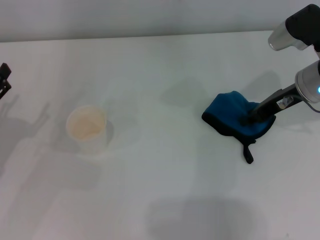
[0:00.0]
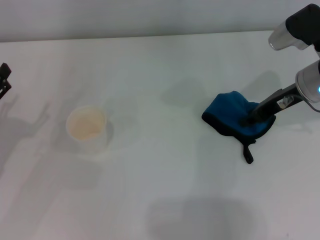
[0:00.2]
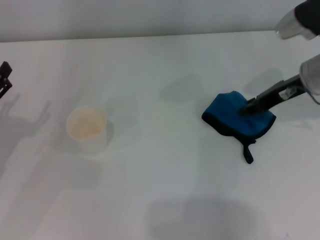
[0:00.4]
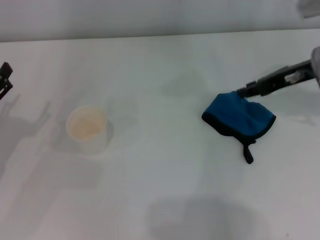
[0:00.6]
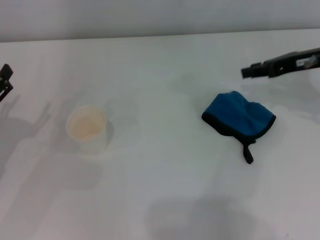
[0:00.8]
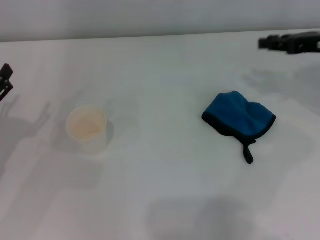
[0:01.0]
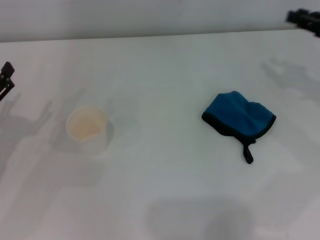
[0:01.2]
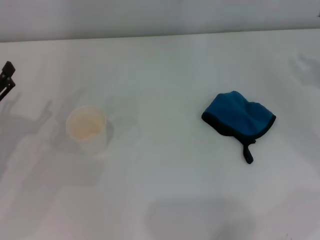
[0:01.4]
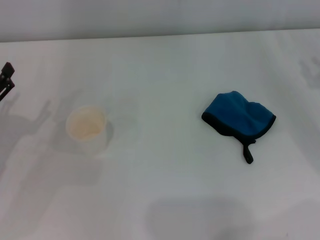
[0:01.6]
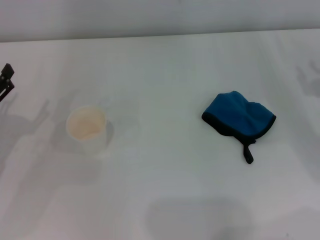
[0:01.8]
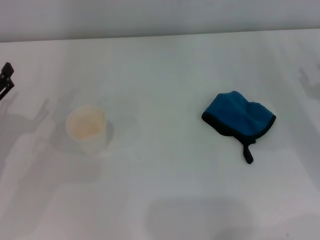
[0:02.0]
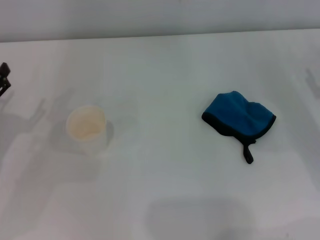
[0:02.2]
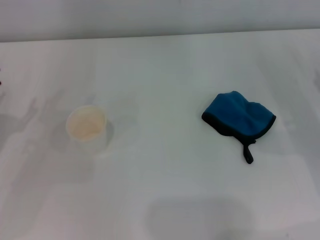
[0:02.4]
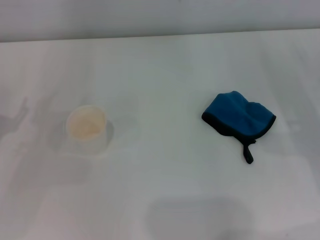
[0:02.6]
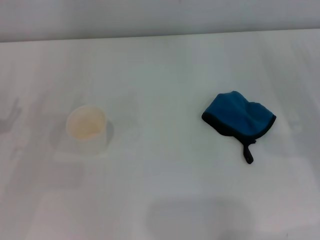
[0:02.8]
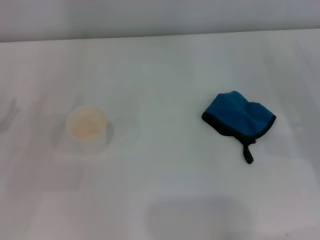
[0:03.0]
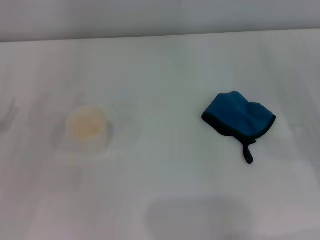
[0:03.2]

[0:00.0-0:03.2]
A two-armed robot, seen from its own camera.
0:00.0 to 0:01.6: The right gripper heads to the right and backward, covering roughly 15 cm.

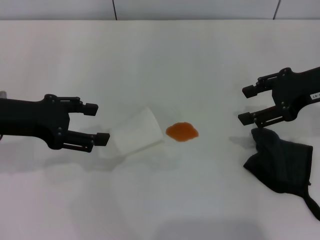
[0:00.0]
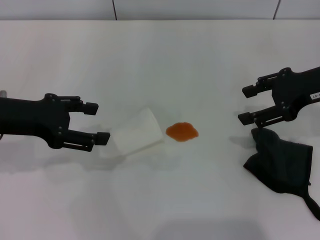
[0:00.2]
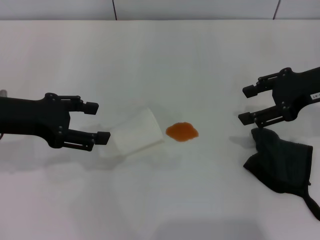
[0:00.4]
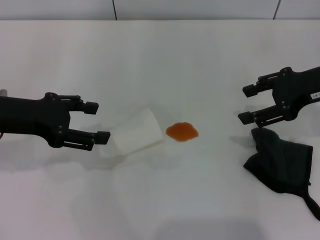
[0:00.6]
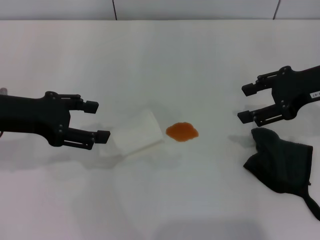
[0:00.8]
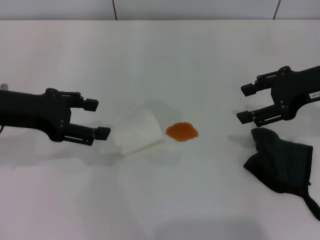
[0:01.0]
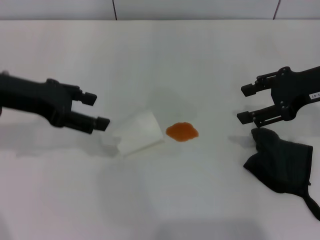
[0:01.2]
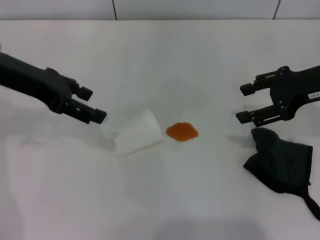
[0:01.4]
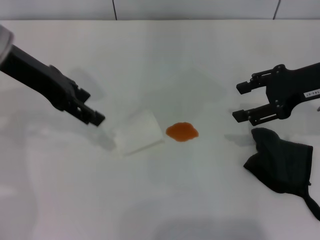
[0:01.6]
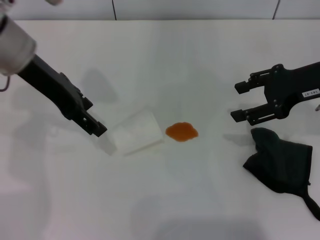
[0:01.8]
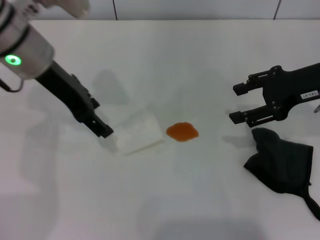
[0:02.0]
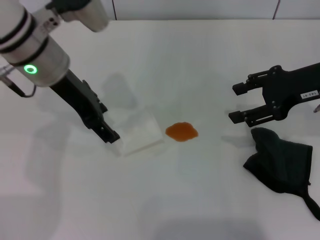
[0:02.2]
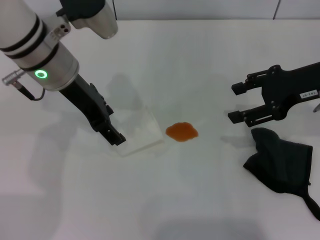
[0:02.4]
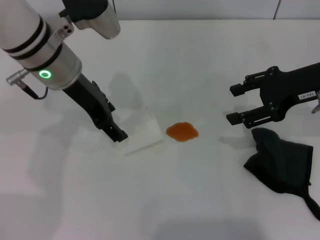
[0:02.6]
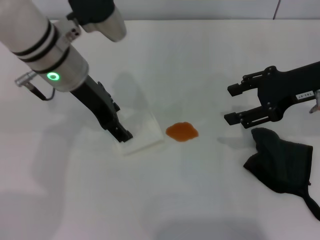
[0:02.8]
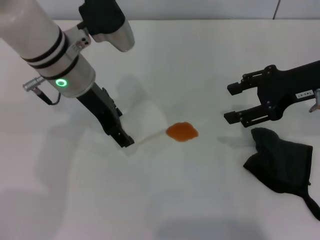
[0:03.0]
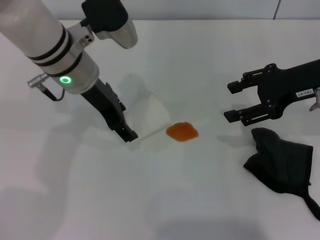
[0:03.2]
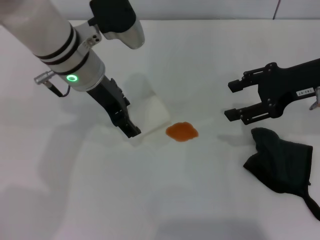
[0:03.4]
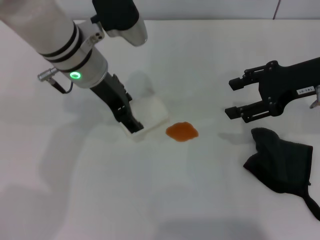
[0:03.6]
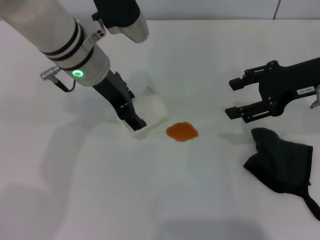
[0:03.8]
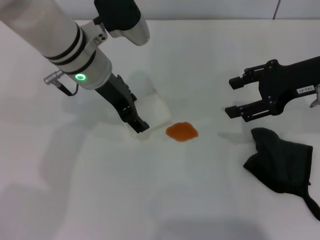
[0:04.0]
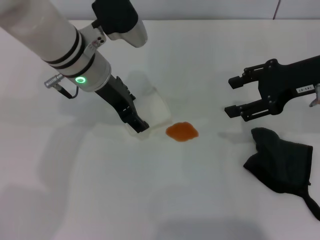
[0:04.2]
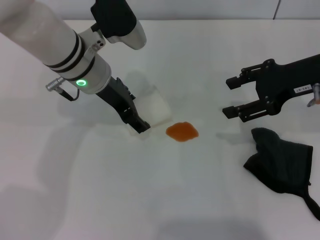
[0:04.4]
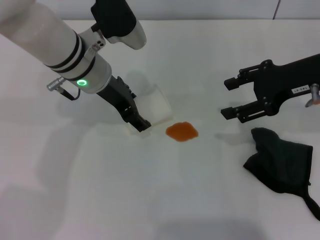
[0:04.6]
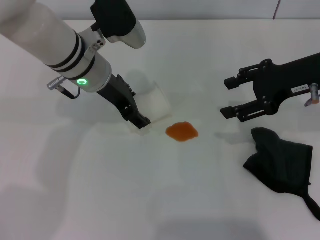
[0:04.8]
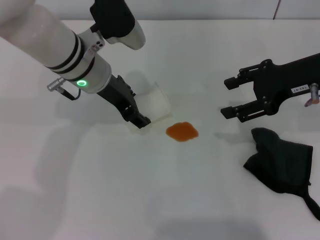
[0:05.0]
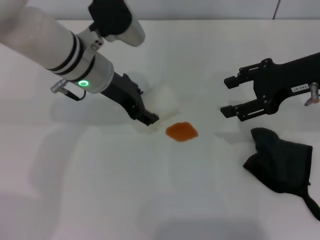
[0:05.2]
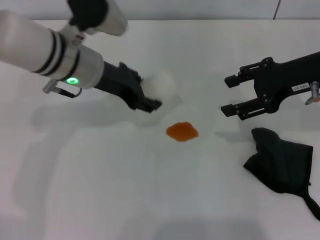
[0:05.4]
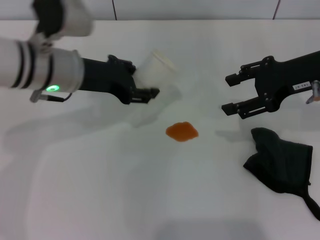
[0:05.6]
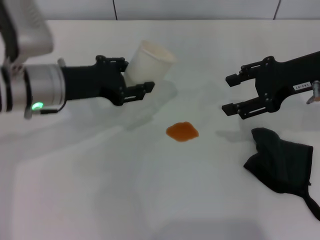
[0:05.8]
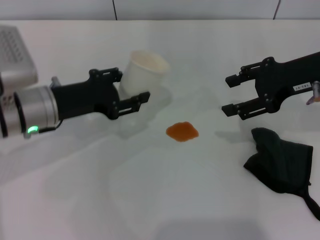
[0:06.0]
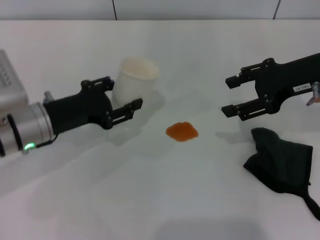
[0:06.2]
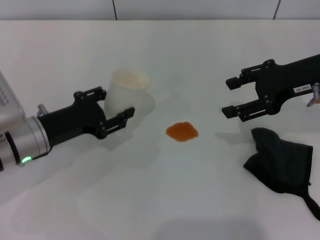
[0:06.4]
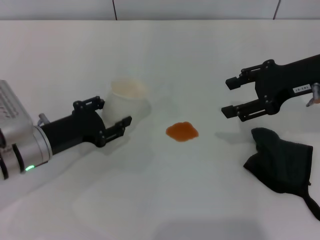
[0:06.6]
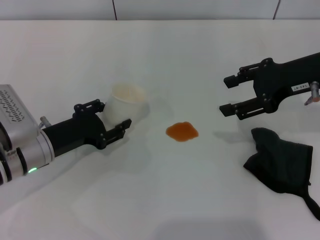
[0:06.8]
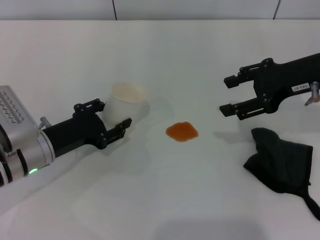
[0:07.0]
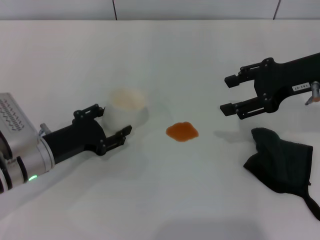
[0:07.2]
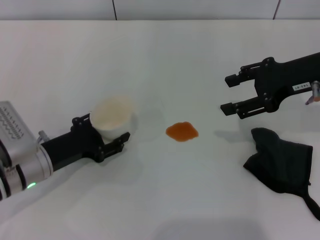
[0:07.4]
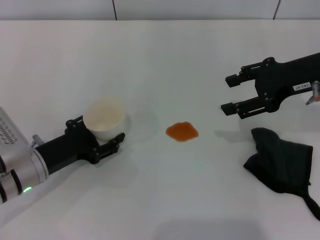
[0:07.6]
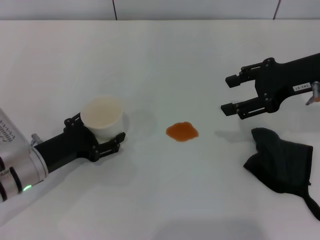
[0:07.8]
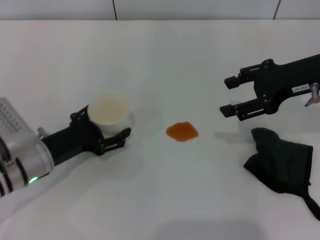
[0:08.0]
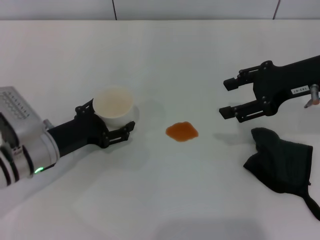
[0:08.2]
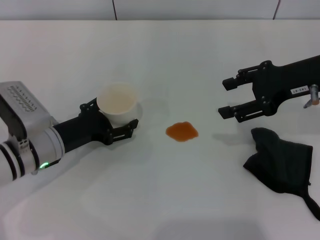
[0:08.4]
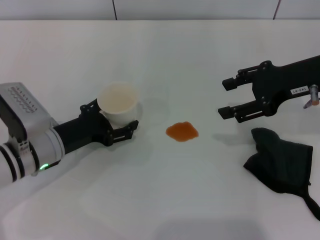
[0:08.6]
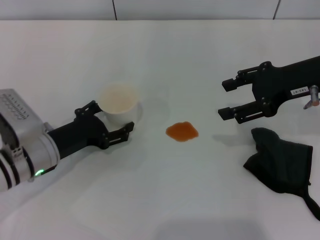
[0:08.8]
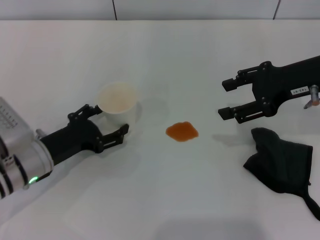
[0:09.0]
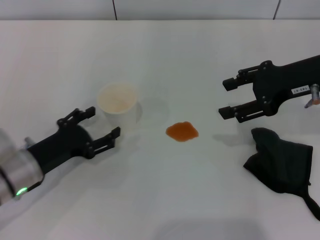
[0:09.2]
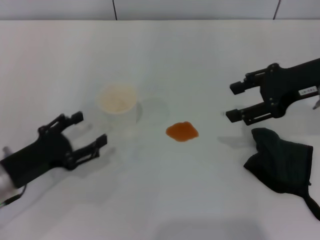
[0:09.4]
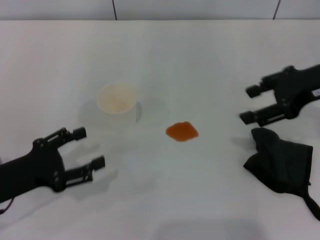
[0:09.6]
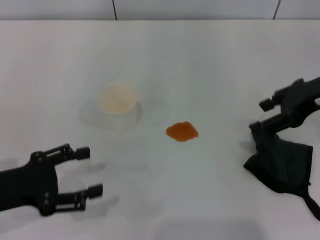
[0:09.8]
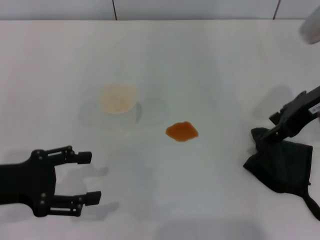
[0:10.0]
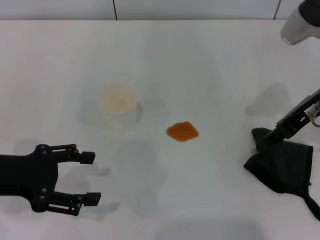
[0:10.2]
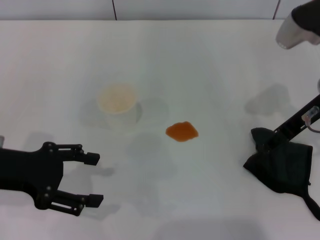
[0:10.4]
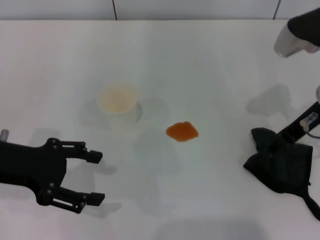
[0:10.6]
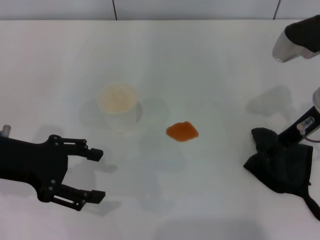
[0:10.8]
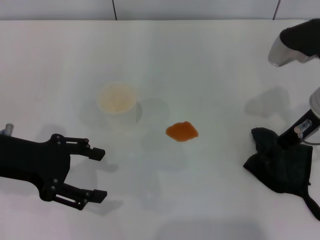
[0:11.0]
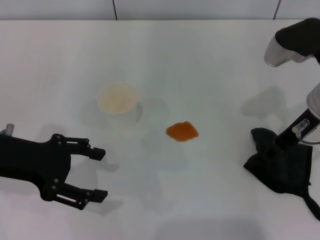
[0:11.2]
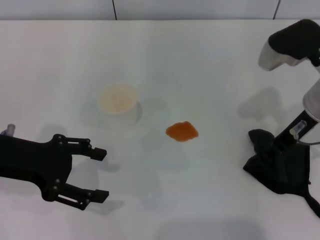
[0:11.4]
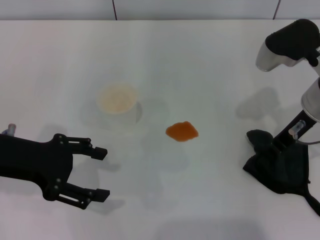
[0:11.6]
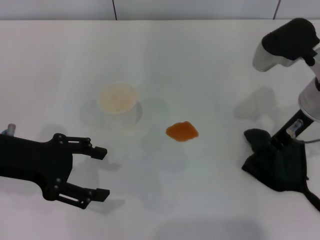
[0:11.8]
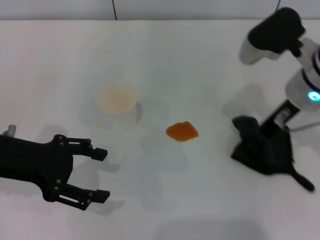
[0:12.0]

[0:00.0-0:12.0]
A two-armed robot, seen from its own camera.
Step, 0:00.0 to 0:04.8: Grasp the paper cup with the left gripper.
Step, 0:05.0 to 0:09.2: Stand the paper cup upright with the left gripper.
Step, 0:09.4 to 0:11.6: Grasp the rag with the right gripper.
0:00.0 to 0:01.6: The left gripper shifts about 10 cm forward, upward and to the right.
0:01.6 to 0:03.0: The left gripper goes roughly 10 cm to the right and downward.
0:03.0 to 0:04.4: The grippers stay close to where they were, moving slightly.
0:04.4 to 0:06.0: The left gripper goes some 10 cm to the left and backward, and closes.
0:06.0 to 0:07.6: The left gripper moves downward and backward, approximately 10 cm.
0:07.6 to 0:09.0: The left gripper opens up.
0:09.0 to 0:10.4: The left gripper travels upward by roughly 15 cm.
0:10.4 to 0:12.0: The right gripper closes up.

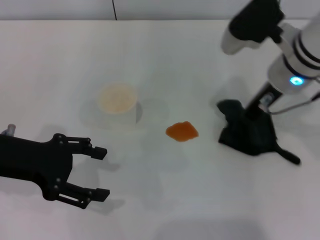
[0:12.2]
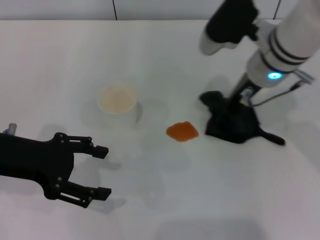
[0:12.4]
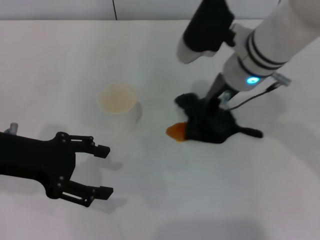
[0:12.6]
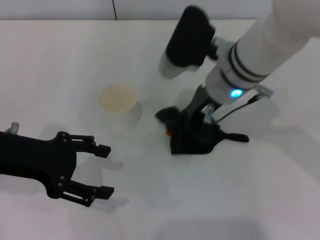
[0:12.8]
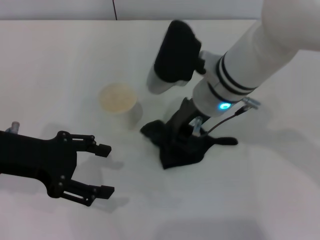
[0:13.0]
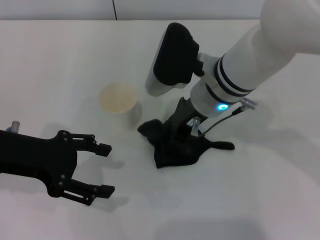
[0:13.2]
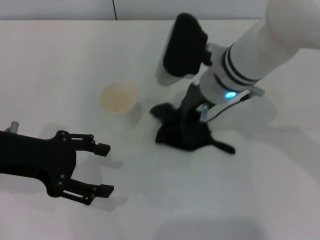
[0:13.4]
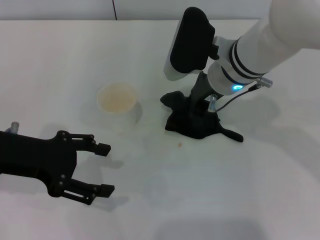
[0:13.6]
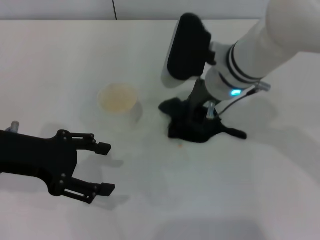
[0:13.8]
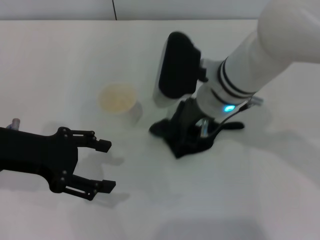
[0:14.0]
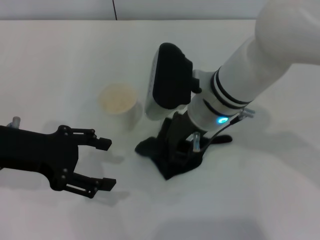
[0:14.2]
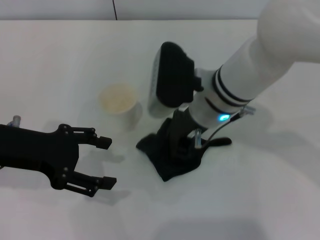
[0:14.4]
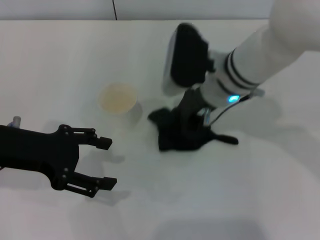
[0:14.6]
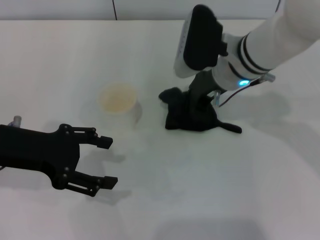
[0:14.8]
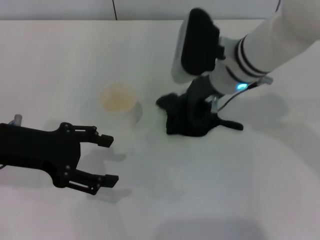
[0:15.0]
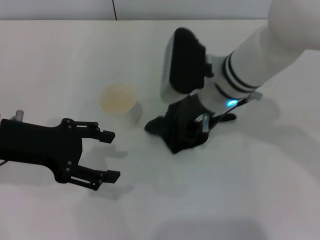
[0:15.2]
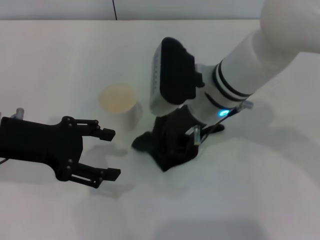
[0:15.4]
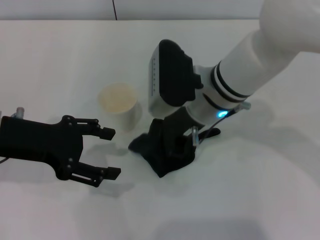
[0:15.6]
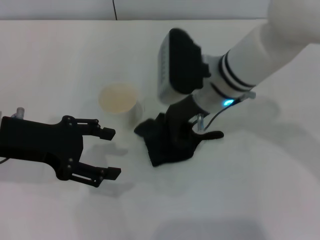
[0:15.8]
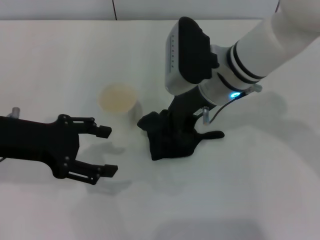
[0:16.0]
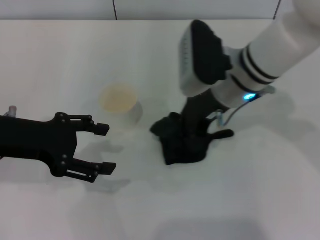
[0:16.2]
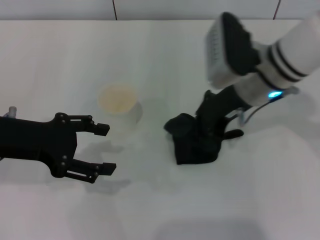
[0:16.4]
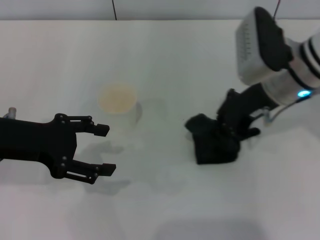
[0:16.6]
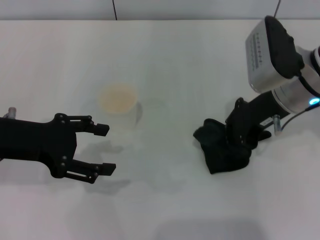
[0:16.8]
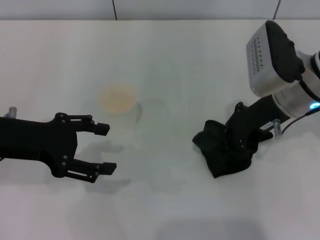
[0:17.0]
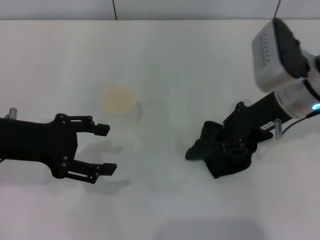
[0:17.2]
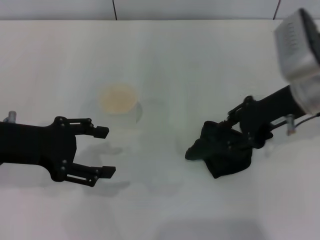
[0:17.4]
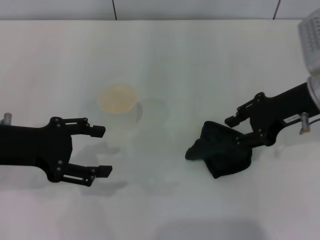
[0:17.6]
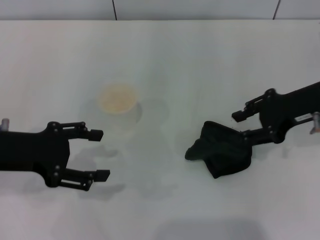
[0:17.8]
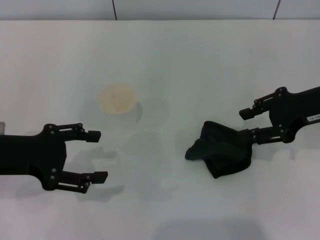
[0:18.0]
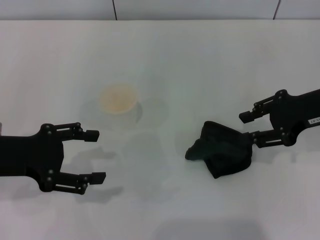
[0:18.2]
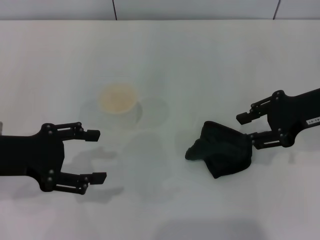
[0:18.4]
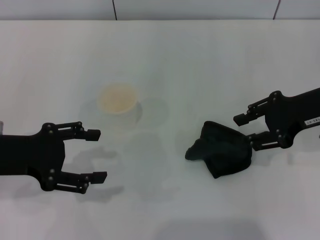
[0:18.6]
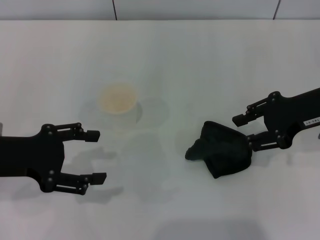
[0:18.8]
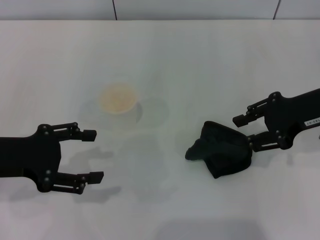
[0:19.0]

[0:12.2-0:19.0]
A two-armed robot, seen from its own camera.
Step, 0:12.2 to 0:16.6: Wipe the stains off the table with the right gripper.
Step, 0:16.8 to 0:17.6: Place the rag on the table with the right gripper.
0:12.2 to 0:13.6: The right gripper shifts approximately 5 cm to the left.
0:13.6 to 0:15.0: The grippers stay close to where they were, moving slightly.
0:15.0 to 0:16.2: There are only small adjustments of the grippers.
0:16.2 to 0:17.6: The right gripper heads to the right, covering some 15 cm, and opens its fingers.
0:17.6 to 0:19.0: The grippers stay close to where they were, moving slightly.
